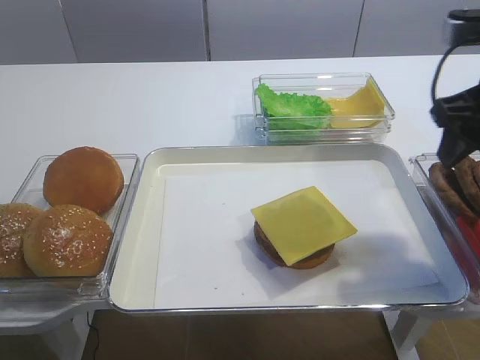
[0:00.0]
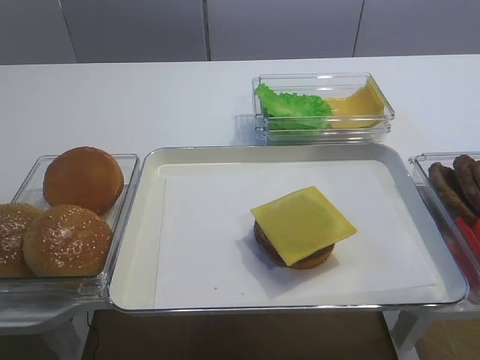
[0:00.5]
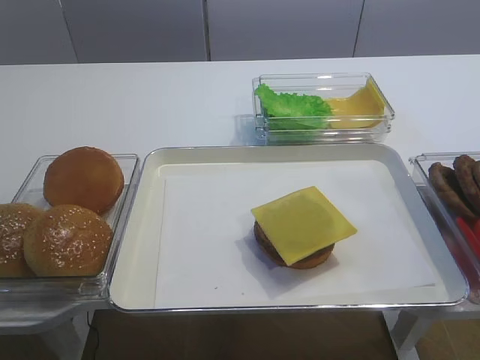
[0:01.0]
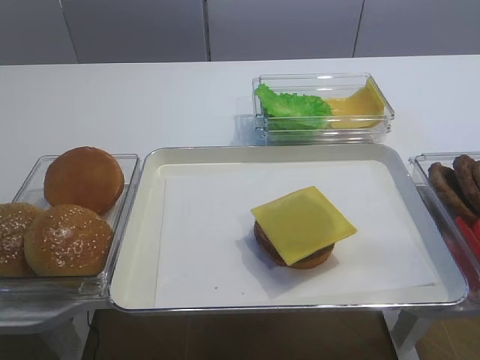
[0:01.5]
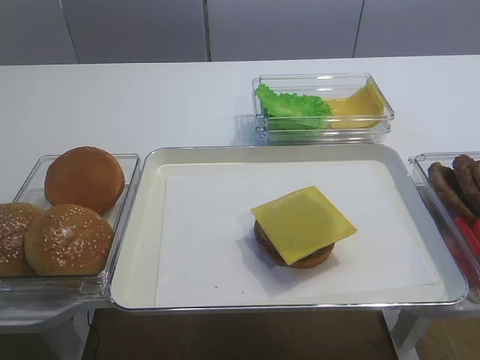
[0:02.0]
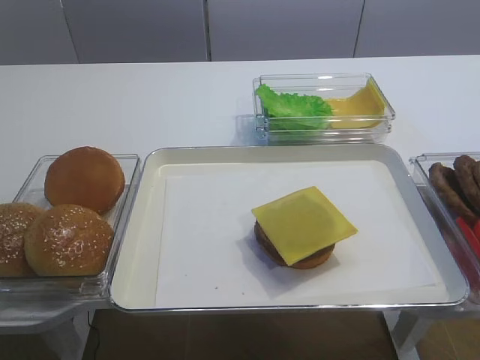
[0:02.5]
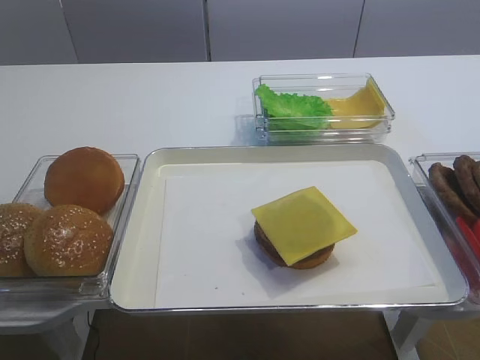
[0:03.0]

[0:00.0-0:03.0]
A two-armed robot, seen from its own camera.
0:00.0 to 0:01.5: The right gripper goes about 25 cm backward.
